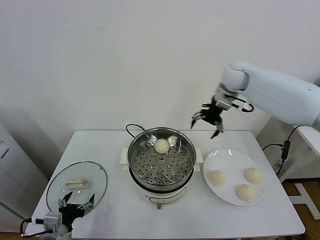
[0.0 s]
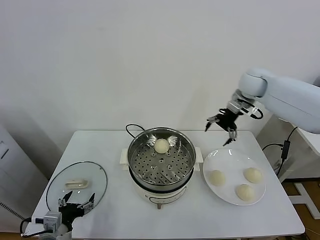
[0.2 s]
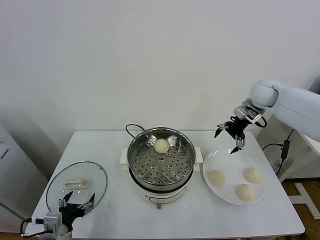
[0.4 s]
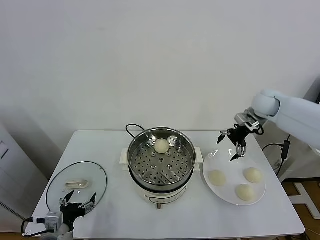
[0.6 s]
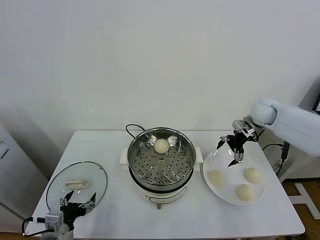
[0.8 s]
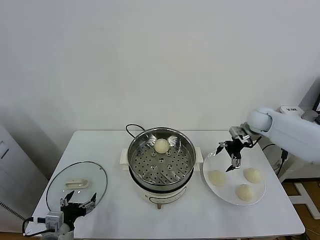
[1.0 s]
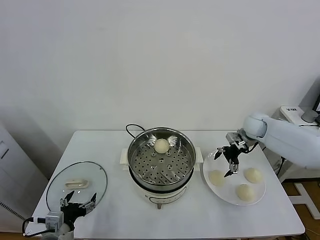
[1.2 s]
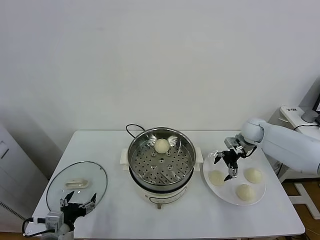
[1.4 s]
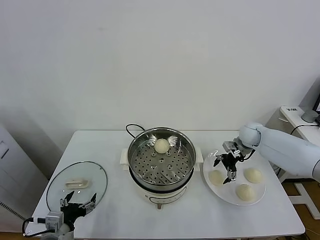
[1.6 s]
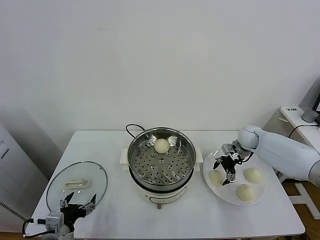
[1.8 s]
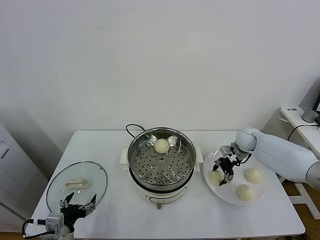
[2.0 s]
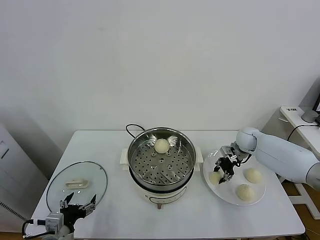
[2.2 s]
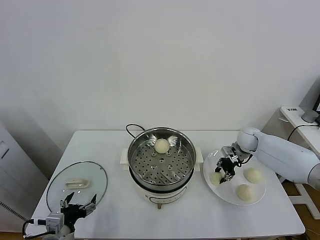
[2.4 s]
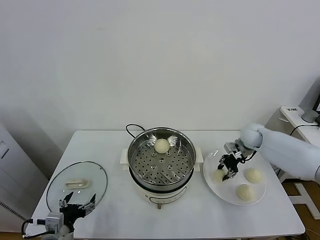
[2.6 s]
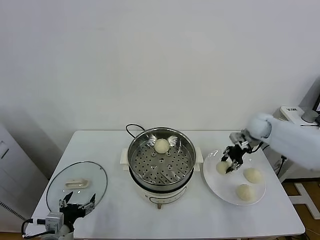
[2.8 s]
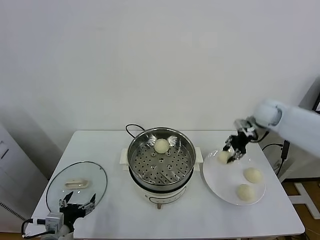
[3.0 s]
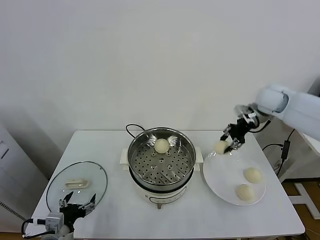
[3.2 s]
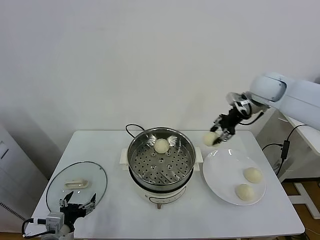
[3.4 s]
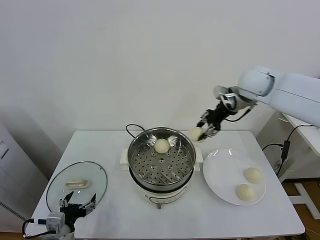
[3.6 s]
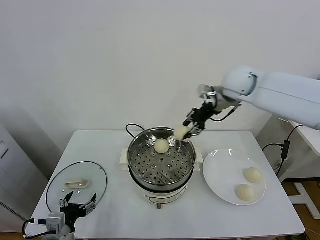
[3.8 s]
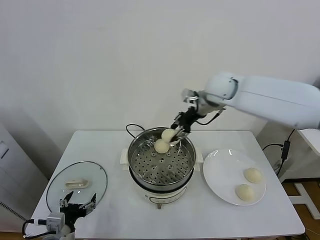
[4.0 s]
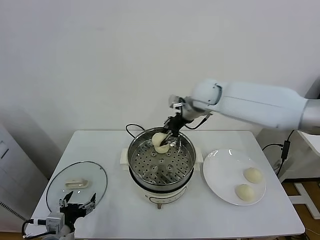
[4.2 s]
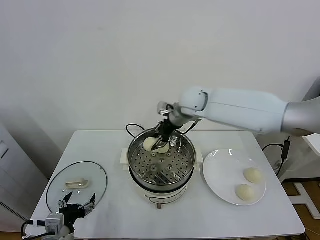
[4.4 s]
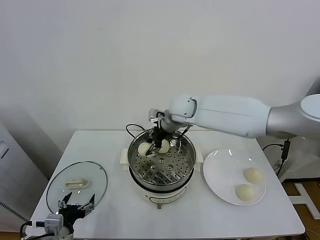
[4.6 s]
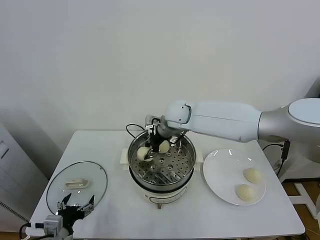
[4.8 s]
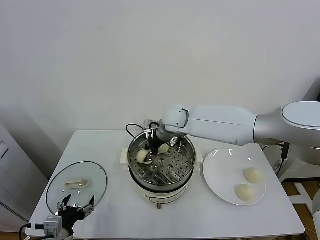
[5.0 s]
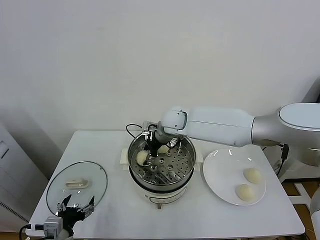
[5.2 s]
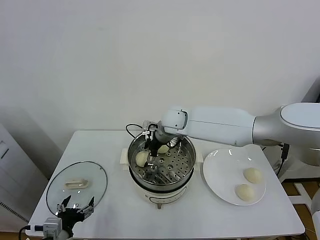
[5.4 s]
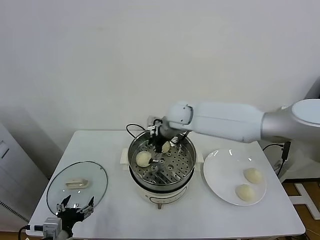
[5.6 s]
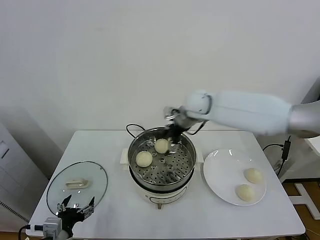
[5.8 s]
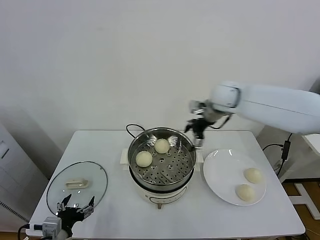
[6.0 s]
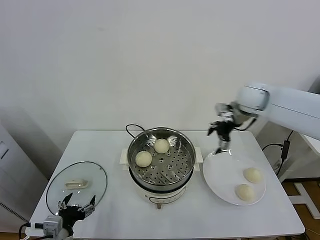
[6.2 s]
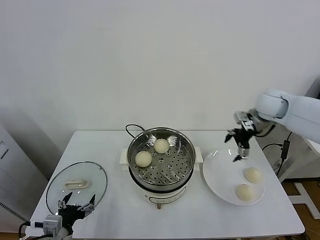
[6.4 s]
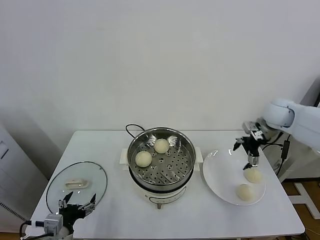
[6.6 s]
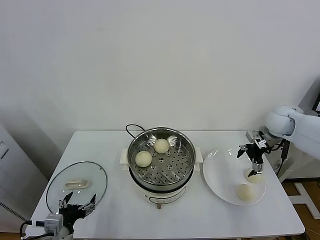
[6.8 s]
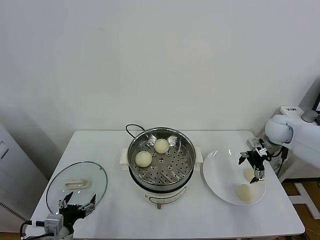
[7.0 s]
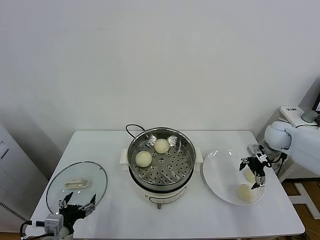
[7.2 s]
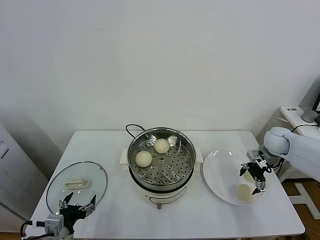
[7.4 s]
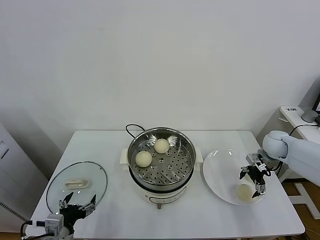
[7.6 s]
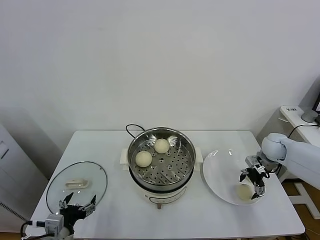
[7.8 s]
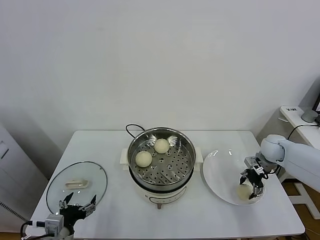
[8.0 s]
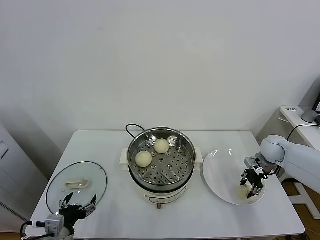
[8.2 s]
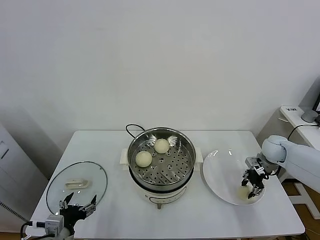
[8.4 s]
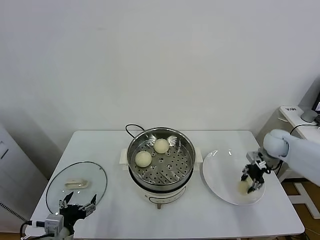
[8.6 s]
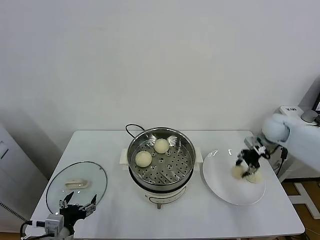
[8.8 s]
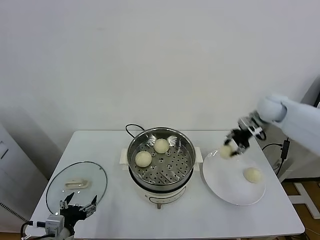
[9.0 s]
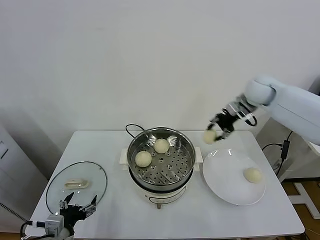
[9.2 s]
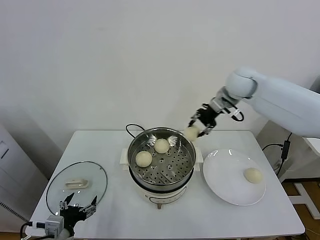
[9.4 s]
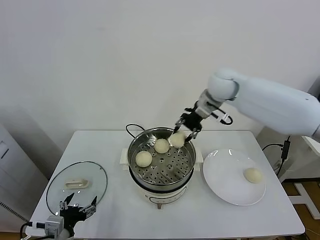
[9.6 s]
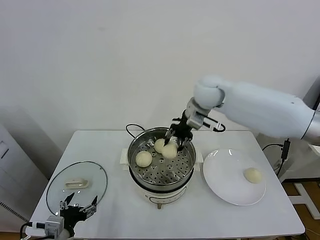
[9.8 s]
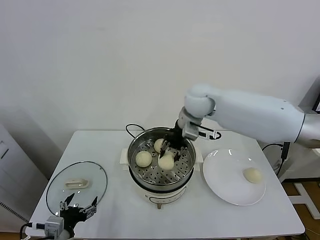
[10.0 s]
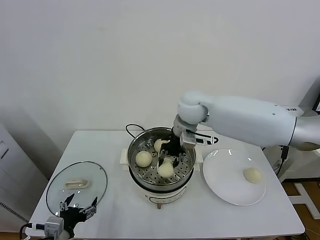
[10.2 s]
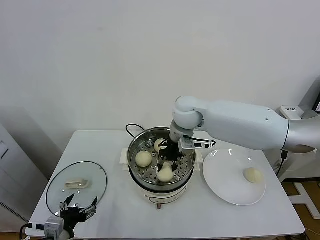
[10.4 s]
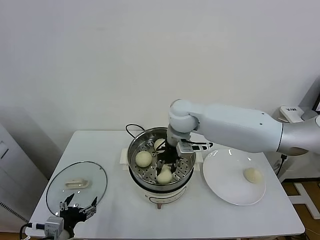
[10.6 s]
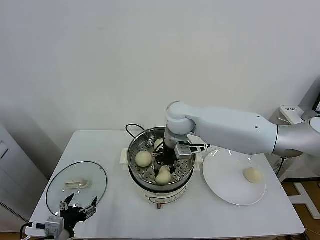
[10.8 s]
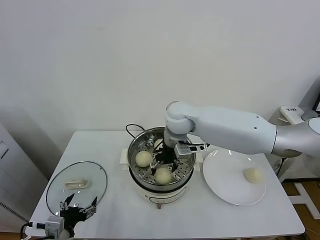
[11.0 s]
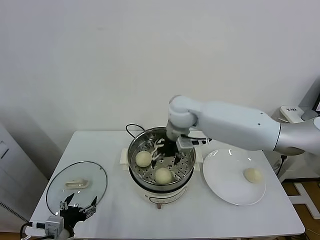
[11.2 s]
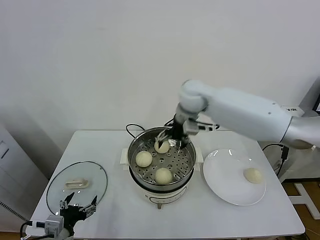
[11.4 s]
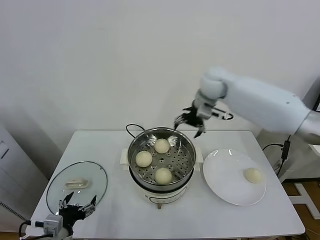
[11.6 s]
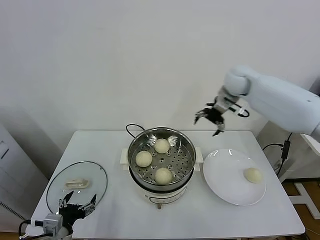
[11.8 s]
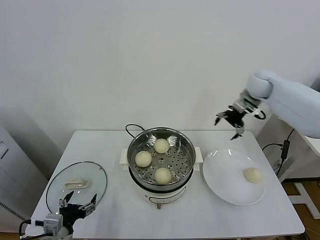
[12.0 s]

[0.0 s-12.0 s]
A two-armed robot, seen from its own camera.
Task of the whole recording: take steamed baozi put them in steamer.
Step, 0.0 to 2.2 s: Grasp the baozi in the plate with right gripper.
Step, 2.4 to 5.4 s: Place the baozi on the steamer with right gripper.
Step, 5.6 to 8.2 s: Grasp the baozi in the plate with right gripper.
Step, 8.4 to 11.0 s: Place the baozi on the steamer with right gripper.
0.0 to 1.6 s: The right gripper heads downward, covering about 25 cm.
1.6 to 3.0 s: The right gripper heads upward, covering roughly 15 cm, and closes up.
3.0 to 4.4 s: The right gripper goes approximately 30 cm to the left.
4.4 to 6.0 s: The right gripper goes approximately 15 cm to the right, and opens up.
6.0 to 7.6 s: The right gripper moves to the right and downward, about 25 cm.
7.6 to 9.0 s: The right gripper moves upward and to the left, approximately 15 cm, and closes.
9.0 to 10.4 s: The right gripper goes approximately 30 cm to the left.
10.4 to 12.0 s: The right gripper is displaced to the right by some 30 cm, and opens its fingers.

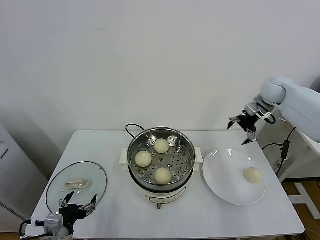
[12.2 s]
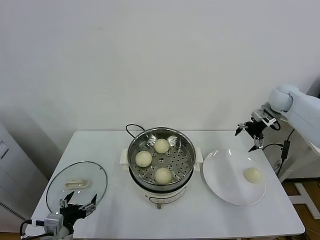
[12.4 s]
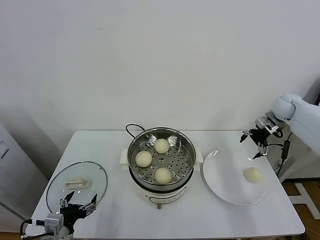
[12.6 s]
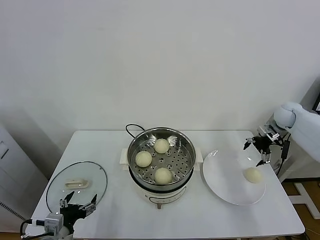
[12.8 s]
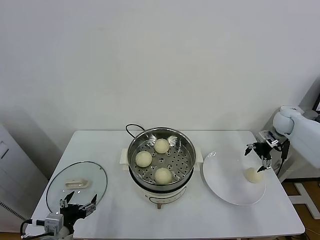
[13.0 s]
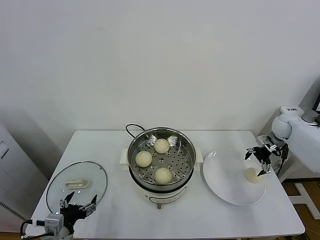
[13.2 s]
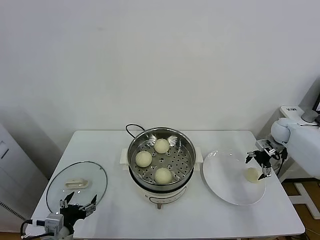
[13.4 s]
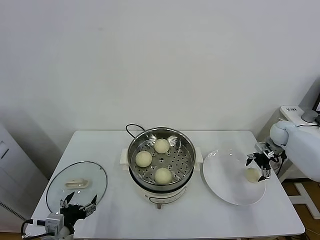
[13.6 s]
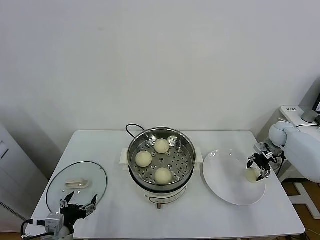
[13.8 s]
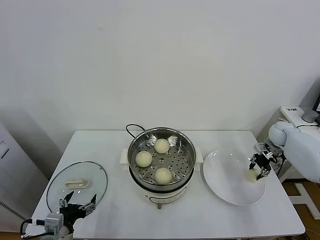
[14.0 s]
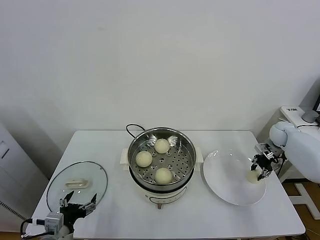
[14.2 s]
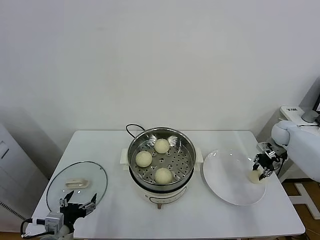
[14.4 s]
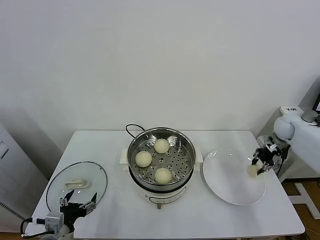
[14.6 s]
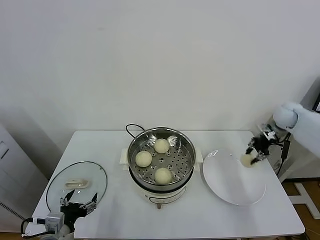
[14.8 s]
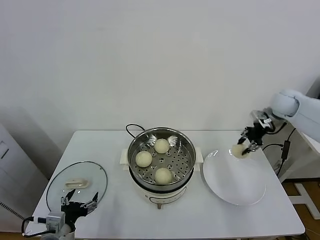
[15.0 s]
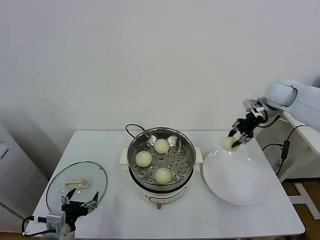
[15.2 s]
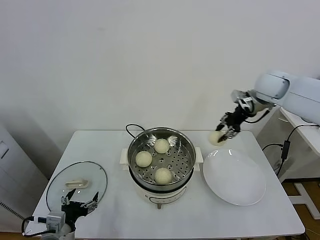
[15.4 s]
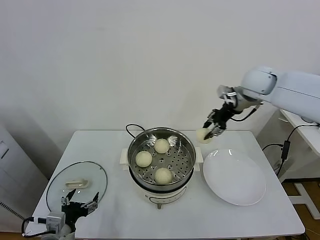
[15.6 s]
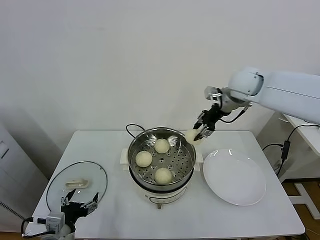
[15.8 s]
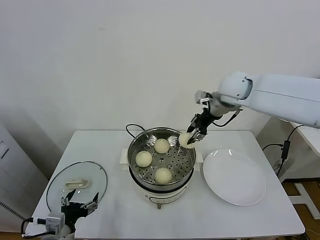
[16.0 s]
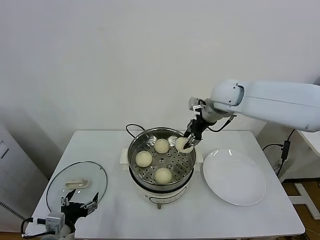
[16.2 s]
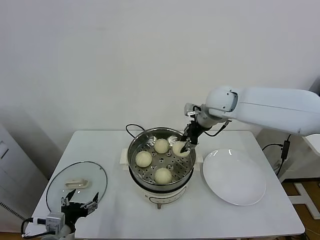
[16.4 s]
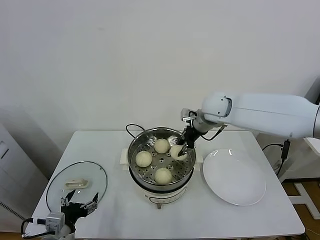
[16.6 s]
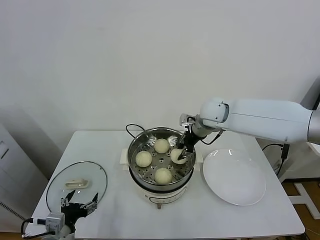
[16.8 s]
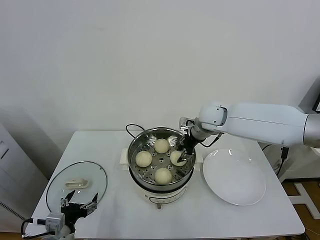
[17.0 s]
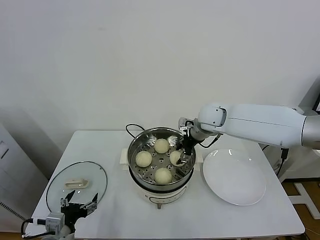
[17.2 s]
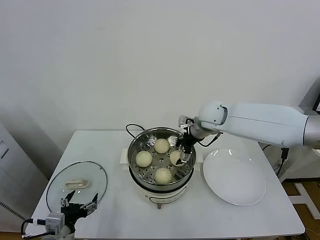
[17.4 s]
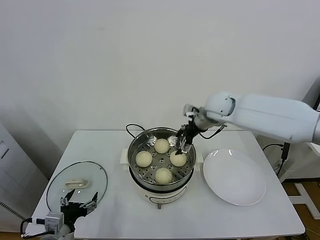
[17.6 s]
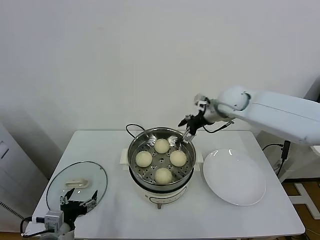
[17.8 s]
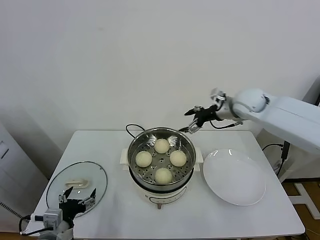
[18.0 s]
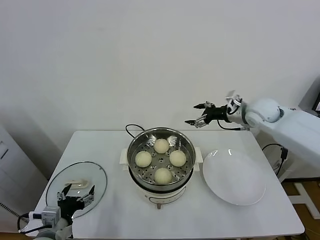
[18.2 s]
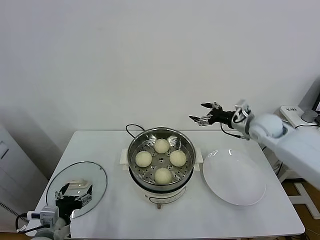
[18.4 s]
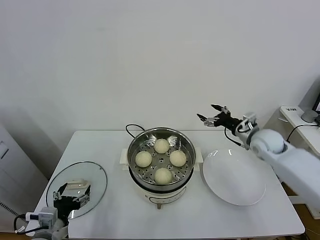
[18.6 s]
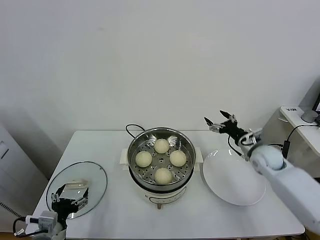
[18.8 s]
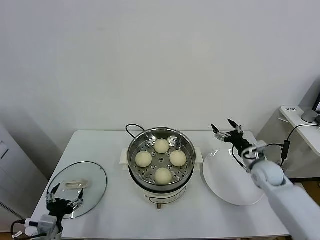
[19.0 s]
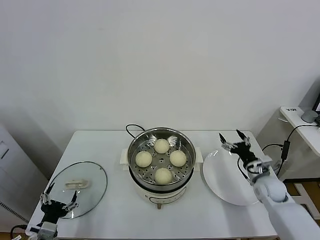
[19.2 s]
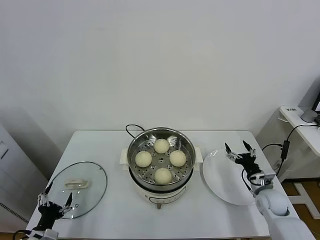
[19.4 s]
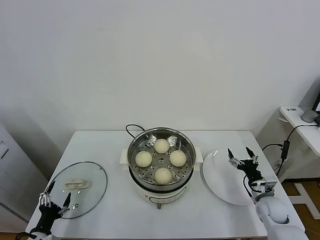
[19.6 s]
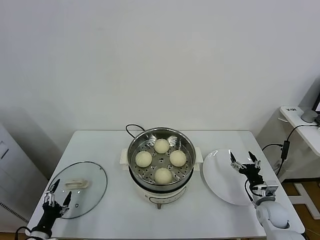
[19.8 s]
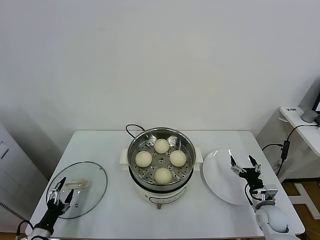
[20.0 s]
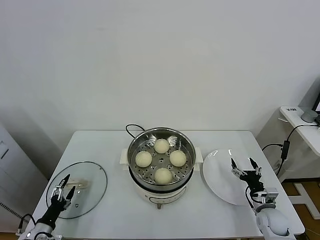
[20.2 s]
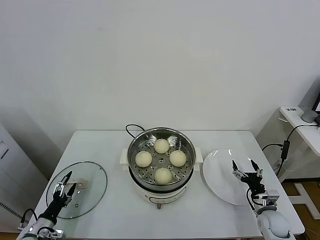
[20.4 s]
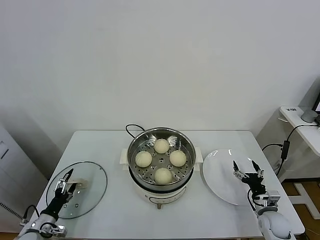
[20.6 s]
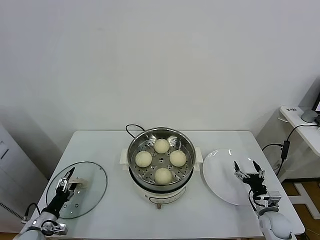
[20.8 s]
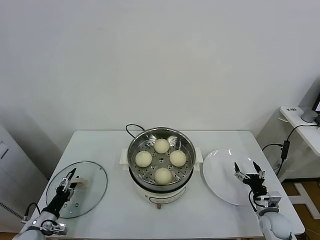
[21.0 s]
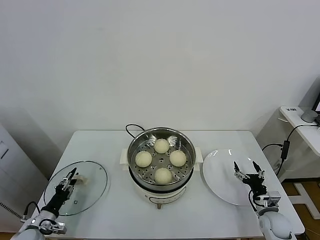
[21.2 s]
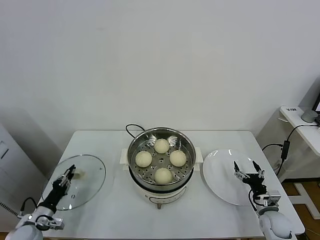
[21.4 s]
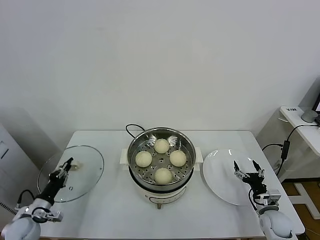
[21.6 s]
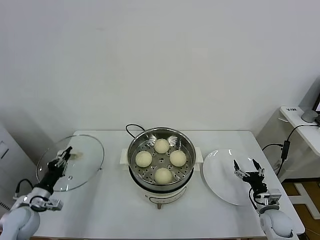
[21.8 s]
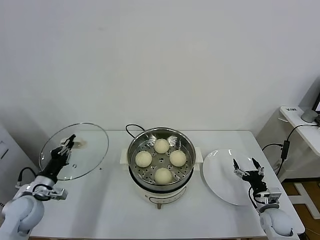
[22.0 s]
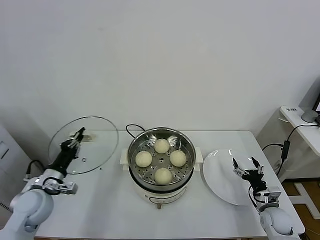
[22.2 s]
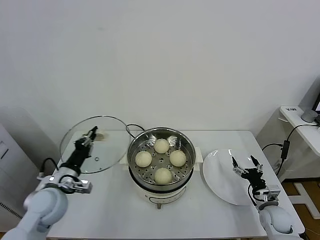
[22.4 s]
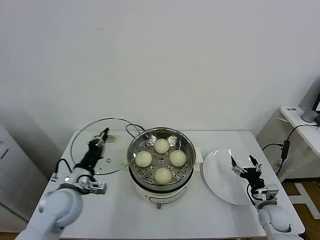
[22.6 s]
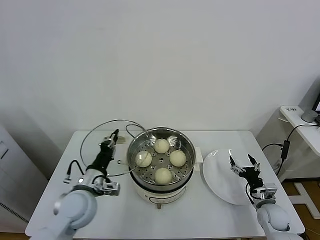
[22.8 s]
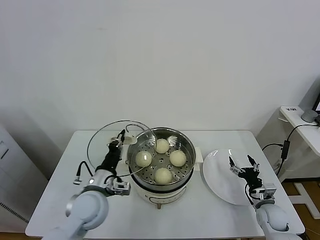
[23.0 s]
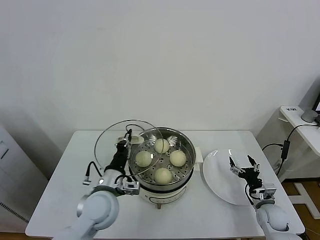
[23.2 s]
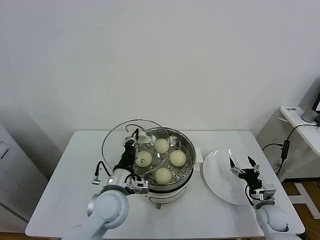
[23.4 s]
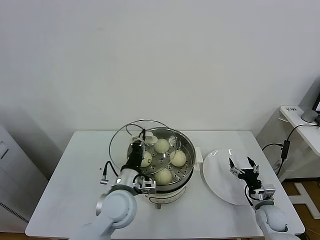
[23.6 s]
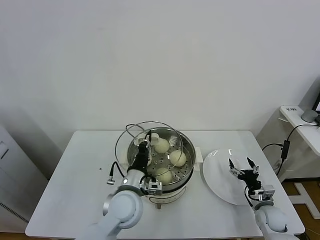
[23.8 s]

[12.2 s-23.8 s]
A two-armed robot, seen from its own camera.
Task of the whole recording: take steamed baozi put them in steamer.
Step, 12.2 to 14.2 s: Grasp the baozi in the plate with right gripper.
Step, 14.4 to 17.4 s: Place the baozi on the steamer with right gripper.
Step, 17.6 to 21.6 s: Grasp the pot lid with left gripper.
12.2 to 13.6 s: The right gripper travels downward and to the right by approximately 20 cm.
13.6 to 15.0 s: The right gripper goes approximately 15 cm upward and to the left, and closes up.
15.0 to 16.6 s: The right gripper shifts some 25 cm to the left.
16.6 to 18.0 s: The right gripper shifts approximately 10 cm to the right, and opens up.
18.0 to 19.4 s: The right gripper is displaced downward and backward by roughly 35 cm; the left gripper is displaced downward and to the left by approximately 10 cm.
19.4 to 21.0 s: The left gripper travels forward, downward and to the left by approximately 10 cm. The right gripper moves downward and backward, about 10 cm.
21.0 to 22.4 s: The left gripper is displaced upward and to the right by about 25 cm, and closes up.
22.4 to 23.8 s: The left gripper heads to the right, covering about 20 cm.
